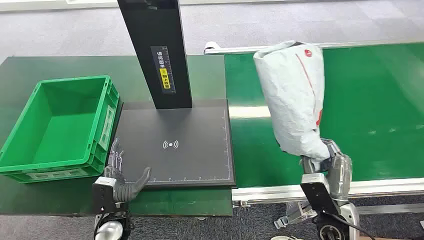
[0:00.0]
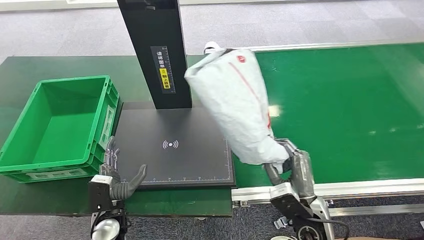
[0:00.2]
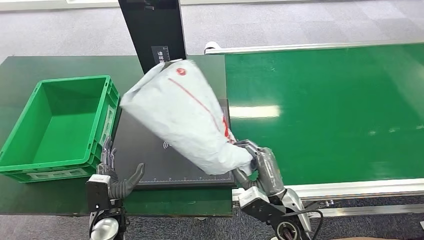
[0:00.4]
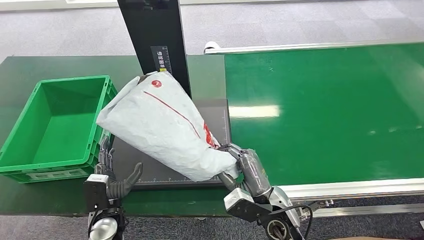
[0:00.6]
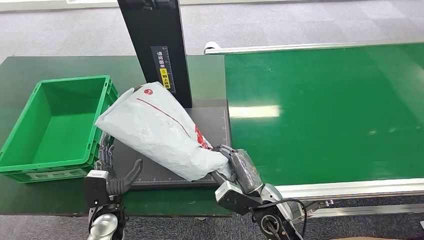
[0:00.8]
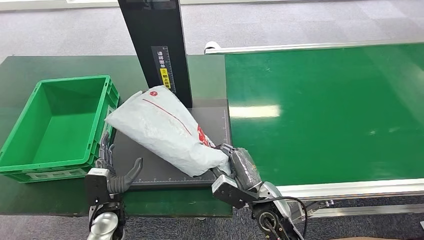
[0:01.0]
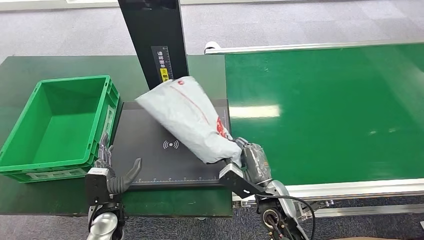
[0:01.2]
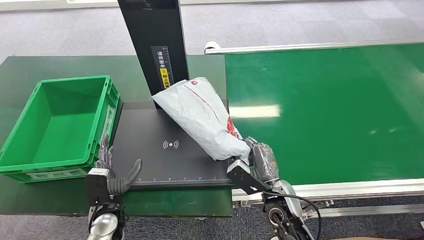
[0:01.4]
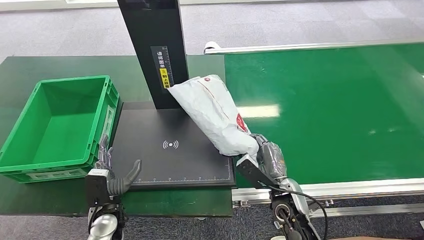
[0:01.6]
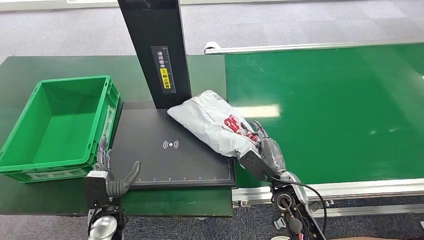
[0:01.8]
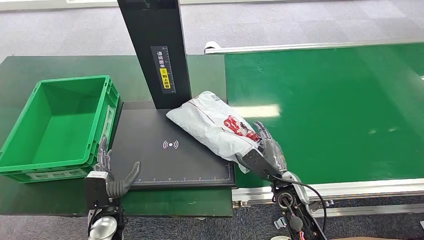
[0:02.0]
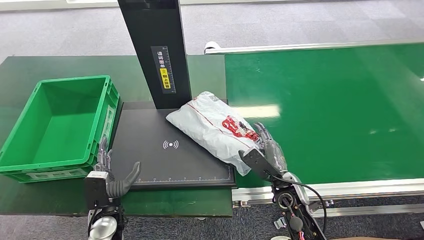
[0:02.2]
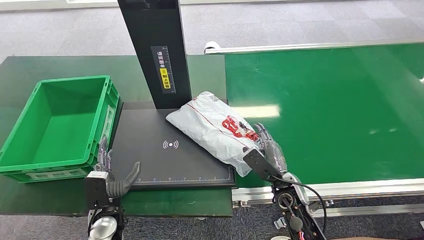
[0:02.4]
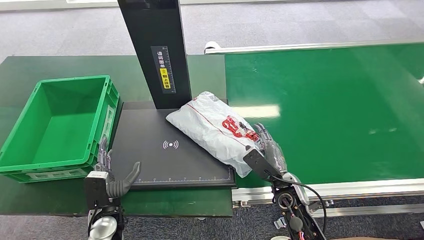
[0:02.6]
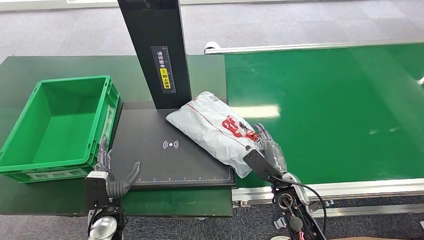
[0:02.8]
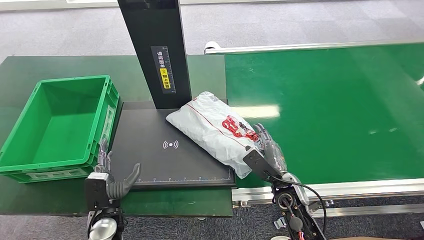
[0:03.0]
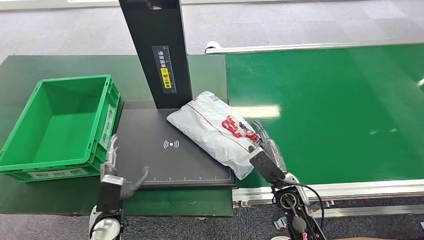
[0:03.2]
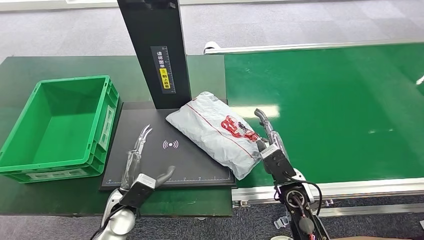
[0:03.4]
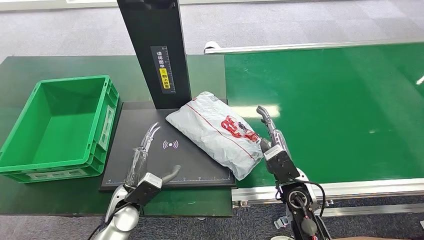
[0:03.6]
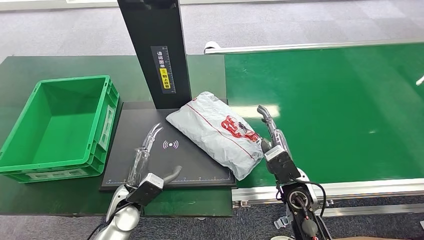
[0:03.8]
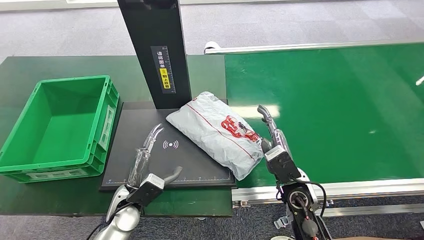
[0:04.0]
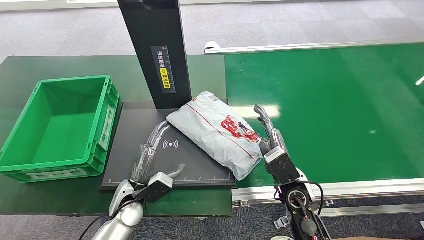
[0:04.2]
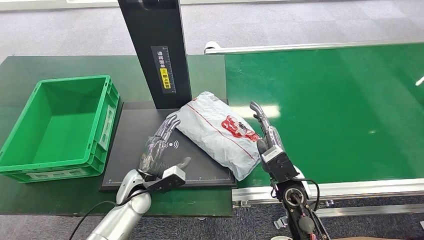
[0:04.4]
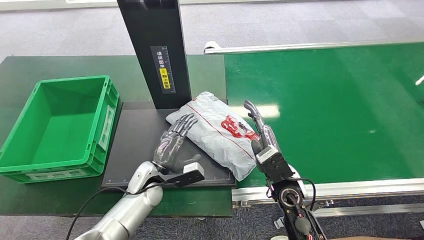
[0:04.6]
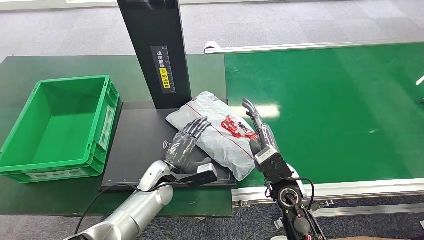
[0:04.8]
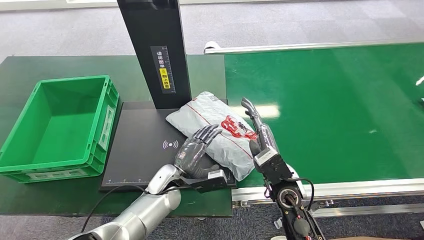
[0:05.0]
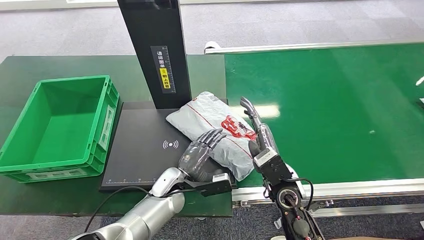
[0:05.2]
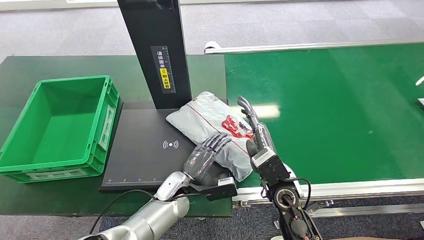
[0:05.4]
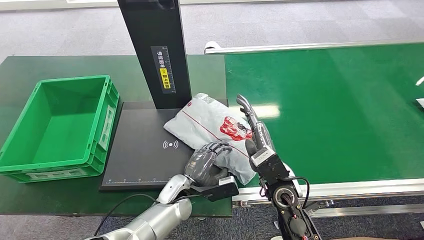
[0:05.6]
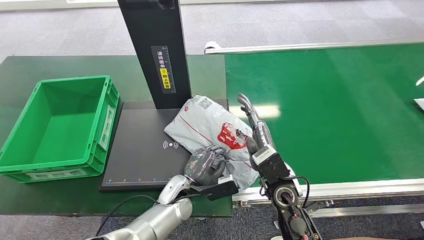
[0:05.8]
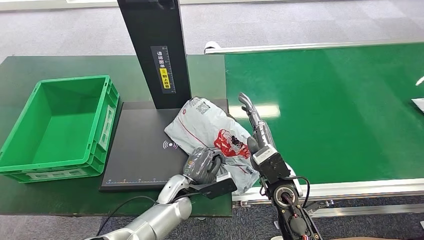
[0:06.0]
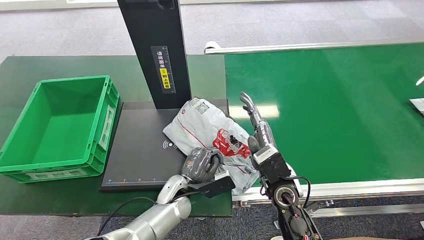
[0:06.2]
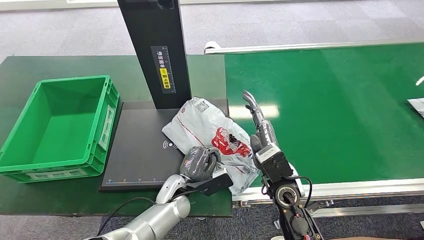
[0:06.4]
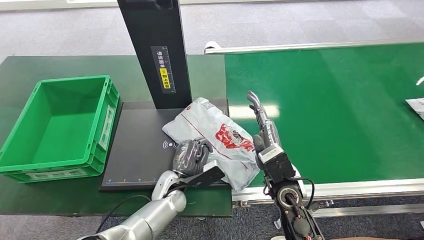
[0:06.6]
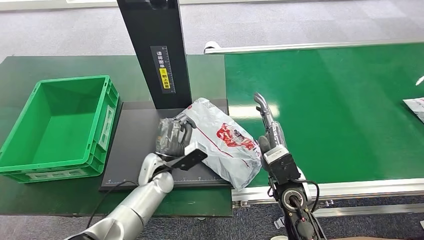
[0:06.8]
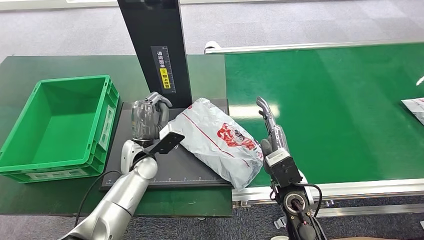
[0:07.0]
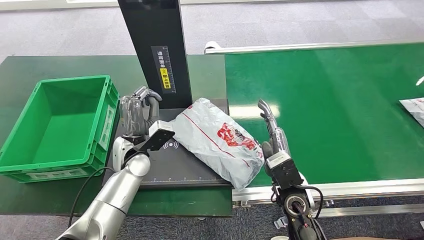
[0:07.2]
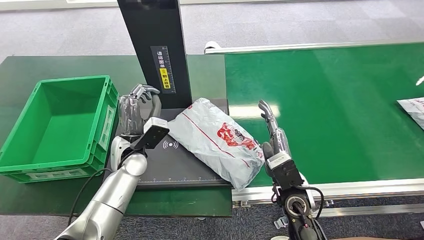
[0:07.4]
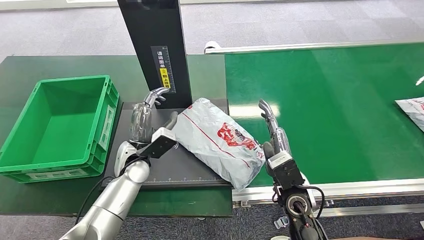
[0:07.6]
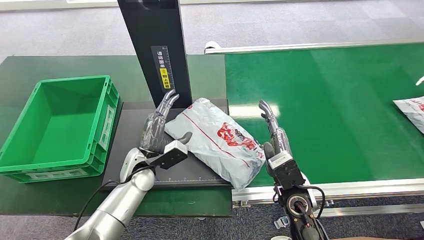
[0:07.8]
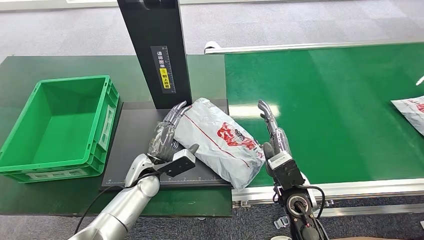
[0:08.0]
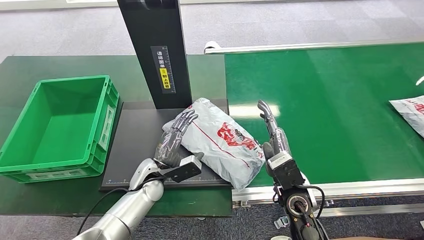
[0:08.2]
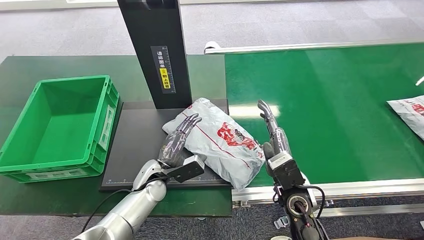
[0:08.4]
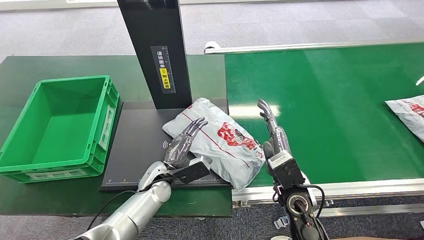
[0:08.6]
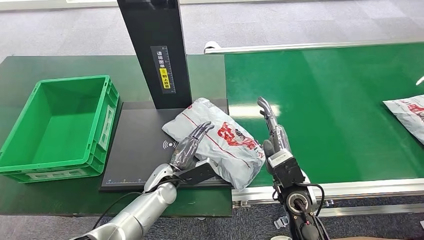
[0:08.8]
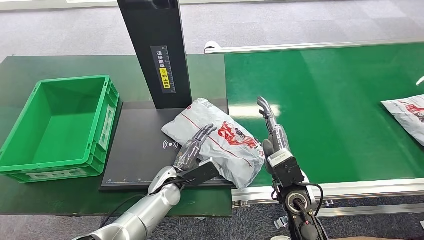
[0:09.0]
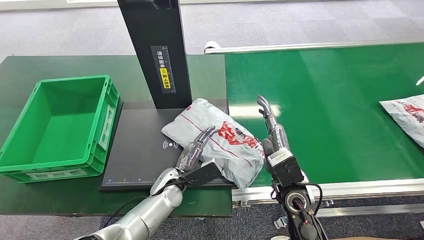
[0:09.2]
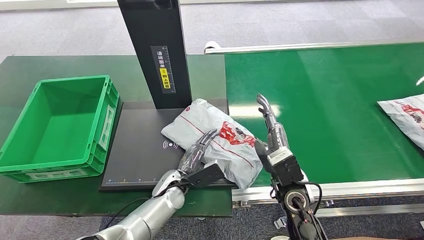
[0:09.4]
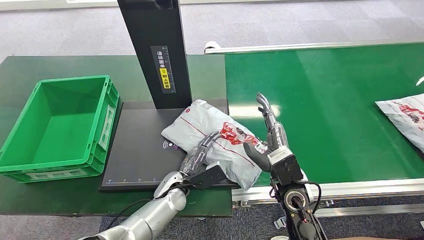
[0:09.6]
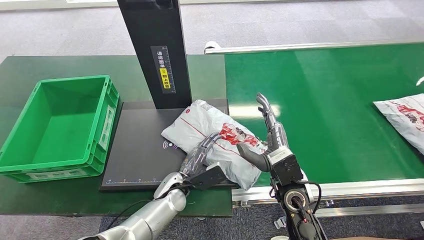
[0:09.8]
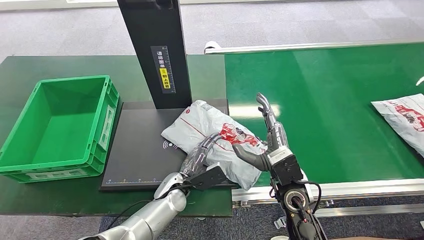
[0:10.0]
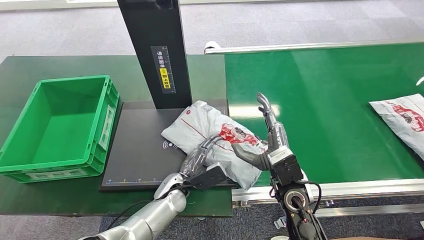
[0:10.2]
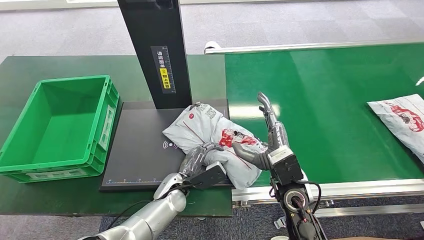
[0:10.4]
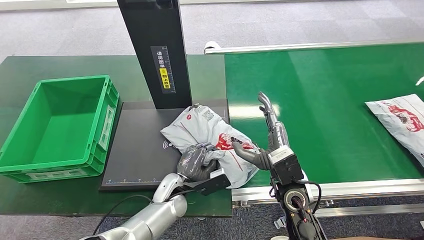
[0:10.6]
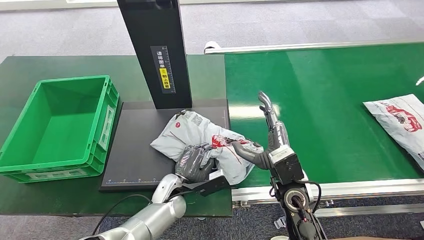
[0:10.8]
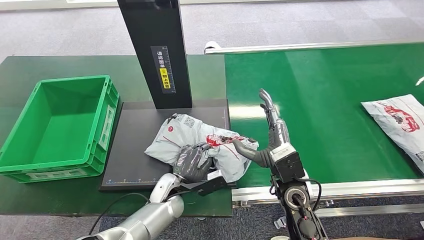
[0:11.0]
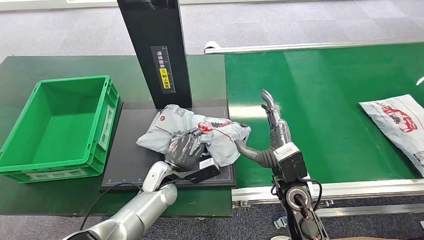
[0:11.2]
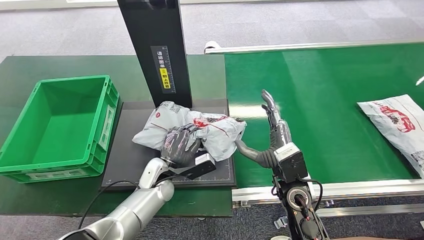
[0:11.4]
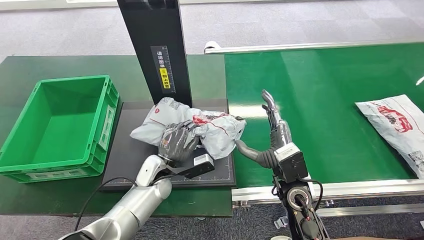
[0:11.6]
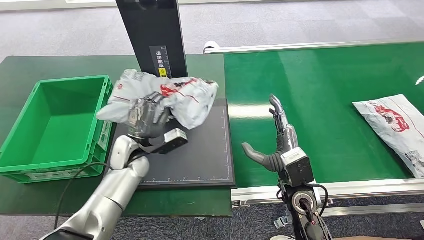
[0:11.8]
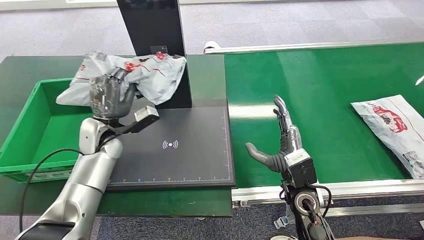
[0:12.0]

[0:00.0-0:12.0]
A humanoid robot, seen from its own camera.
Step, 0:00.0 to 0:00.2: Pick up the package from the conveyor belt.
Step, 0:00.4 to 0:03.2: Place the package onto the inbound machine.
Step, 0:07.8 to 0:12.0: Pick up the package from the inbound machine.
0:01.6 to 0:03.0: The hands move only a little.
0:03.0 to 0:04.4: The right hand moves upward, roughly 5 cm; the left hand travels forward and to the right by roughly 10 cm.
0:04.4 to 0:06.0: The left hand goes about 10 cm to the right.
0:06.0 to 0:07.6: The left hand goes approximately 15 cm to the left, upward and forward.
0:07.6 to 0:09.0: The left hand goes approximately 10 cm downward and to the right.
0:09.0 to 0:10.4: The hands stay close to where they were, moving slightly.

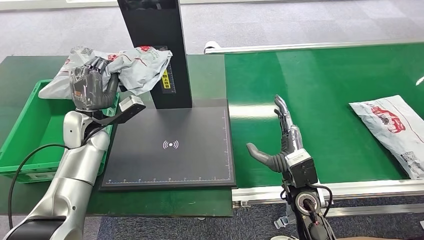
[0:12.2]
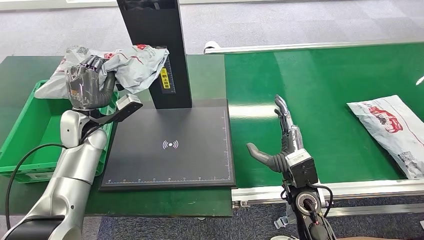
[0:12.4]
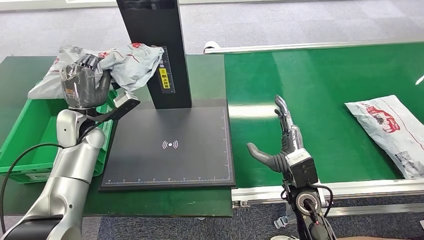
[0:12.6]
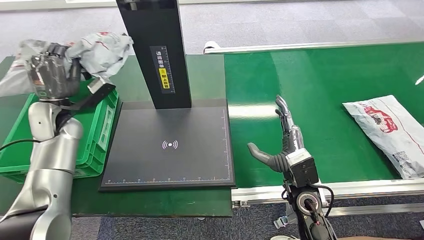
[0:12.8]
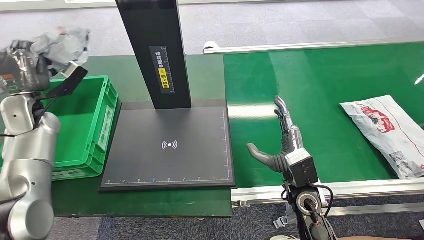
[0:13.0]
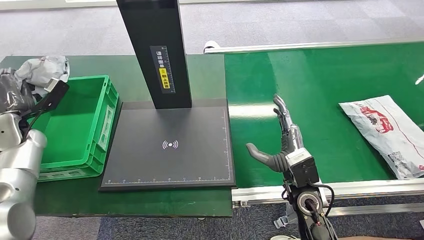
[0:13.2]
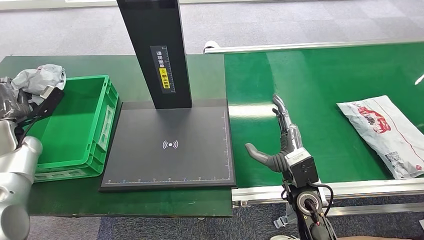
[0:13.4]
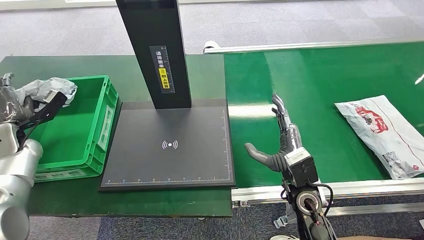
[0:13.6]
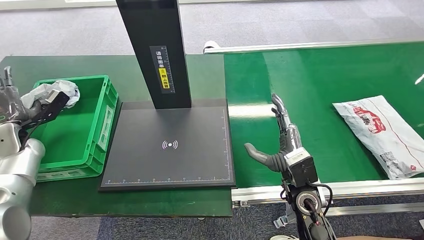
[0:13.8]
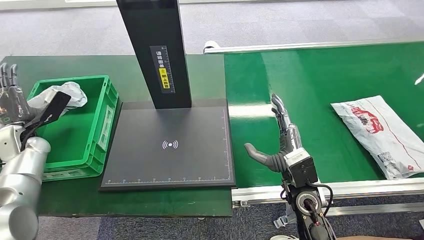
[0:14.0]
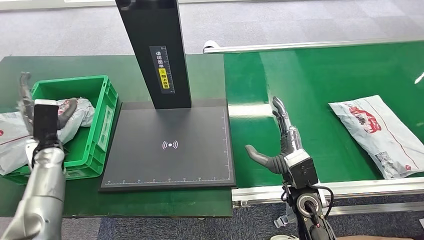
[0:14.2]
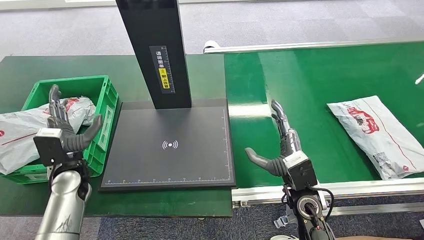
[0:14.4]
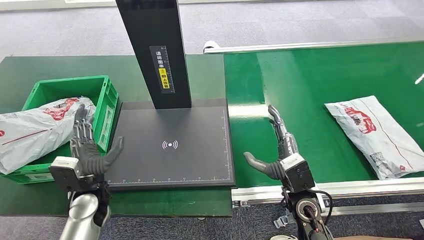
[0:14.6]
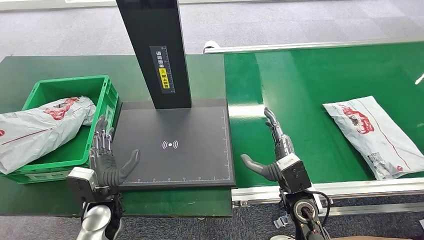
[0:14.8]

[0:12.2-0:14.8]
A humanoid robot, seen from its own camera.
Step, 0:12.2 to 0:14.8: Place the package into the parcel locker.
